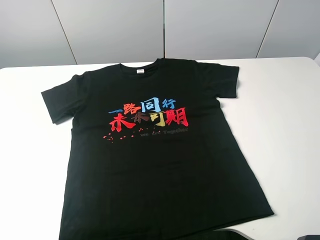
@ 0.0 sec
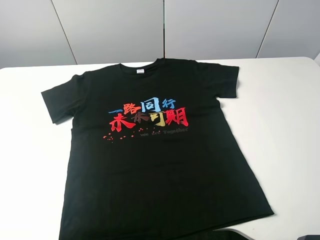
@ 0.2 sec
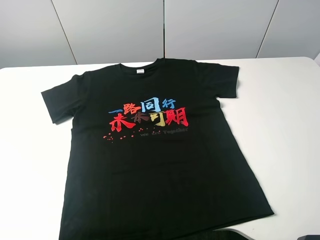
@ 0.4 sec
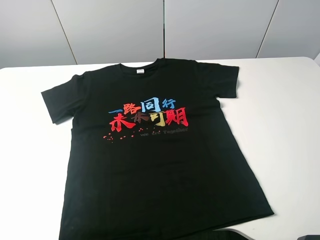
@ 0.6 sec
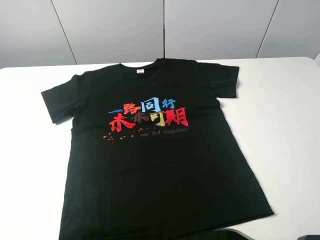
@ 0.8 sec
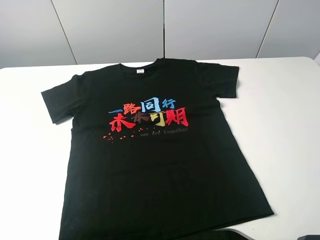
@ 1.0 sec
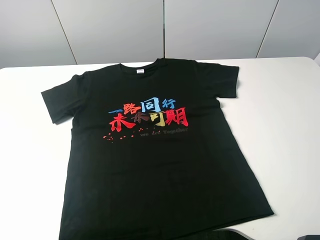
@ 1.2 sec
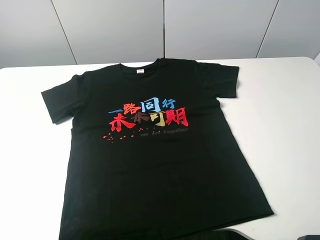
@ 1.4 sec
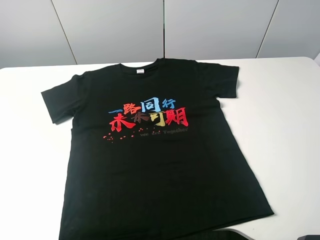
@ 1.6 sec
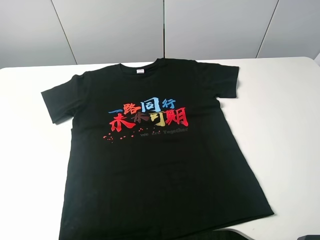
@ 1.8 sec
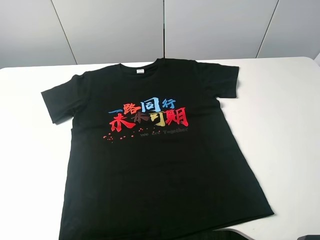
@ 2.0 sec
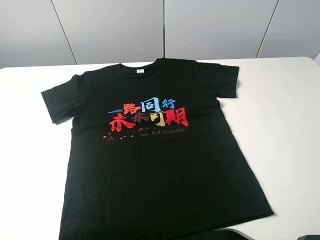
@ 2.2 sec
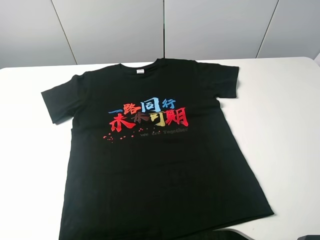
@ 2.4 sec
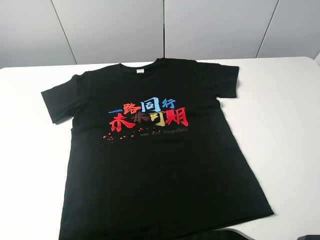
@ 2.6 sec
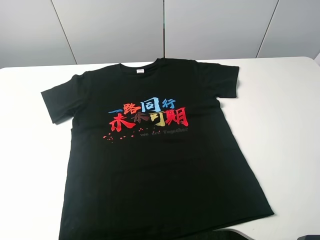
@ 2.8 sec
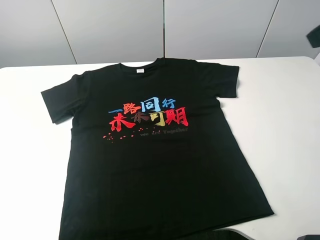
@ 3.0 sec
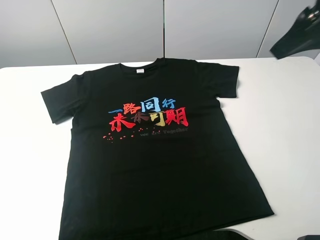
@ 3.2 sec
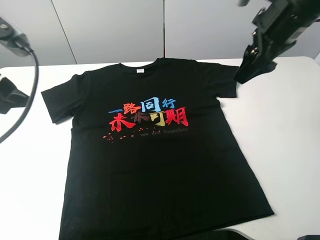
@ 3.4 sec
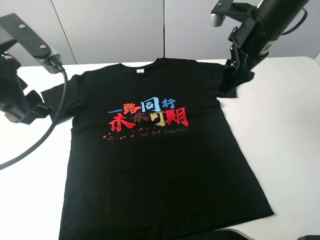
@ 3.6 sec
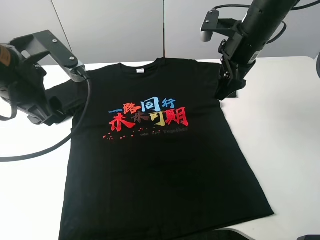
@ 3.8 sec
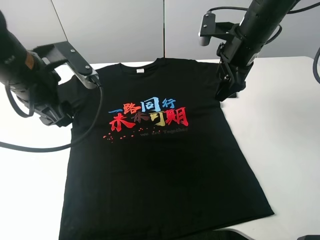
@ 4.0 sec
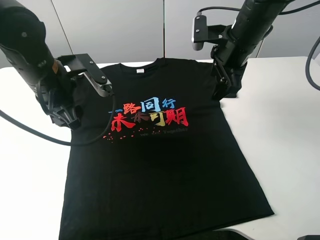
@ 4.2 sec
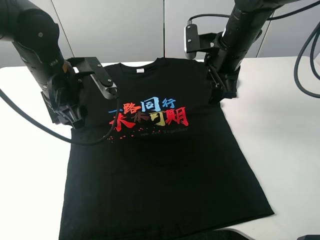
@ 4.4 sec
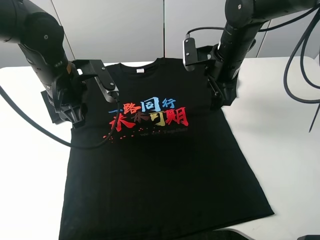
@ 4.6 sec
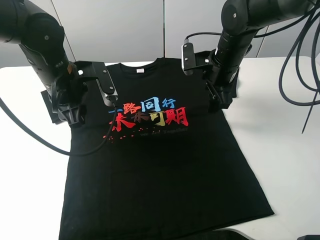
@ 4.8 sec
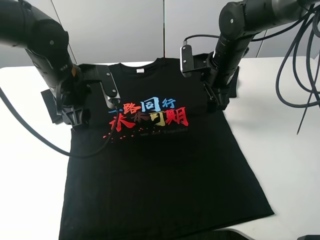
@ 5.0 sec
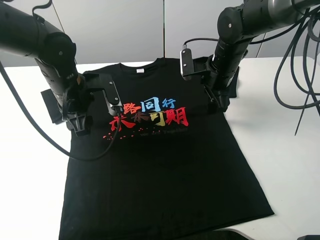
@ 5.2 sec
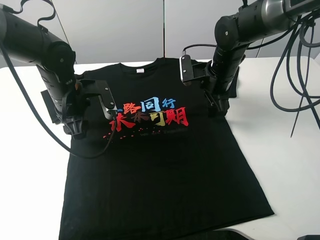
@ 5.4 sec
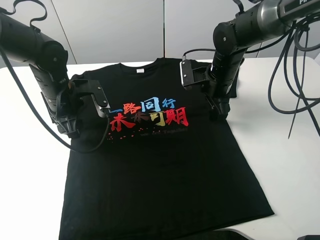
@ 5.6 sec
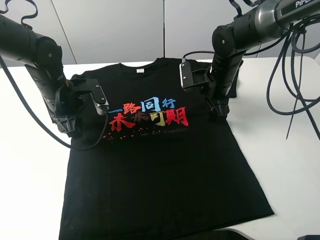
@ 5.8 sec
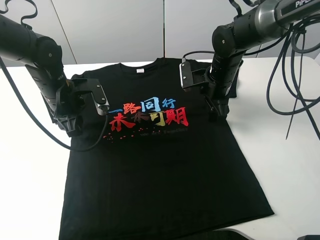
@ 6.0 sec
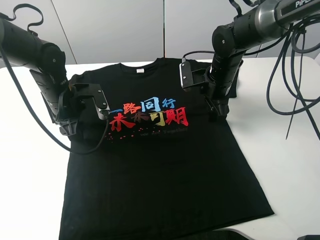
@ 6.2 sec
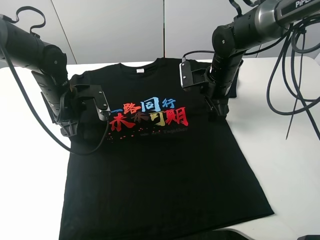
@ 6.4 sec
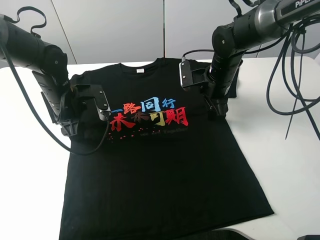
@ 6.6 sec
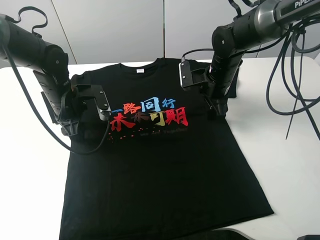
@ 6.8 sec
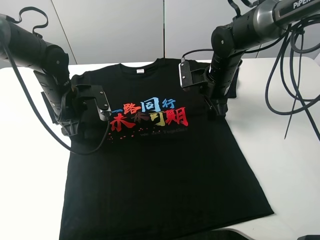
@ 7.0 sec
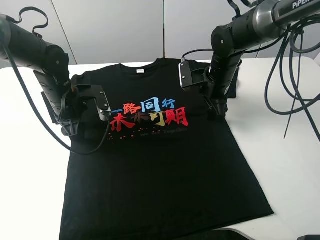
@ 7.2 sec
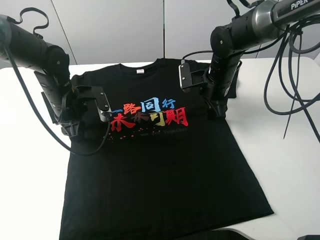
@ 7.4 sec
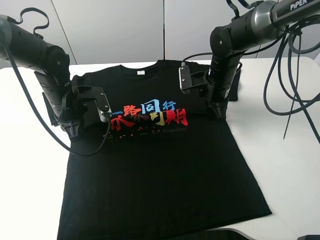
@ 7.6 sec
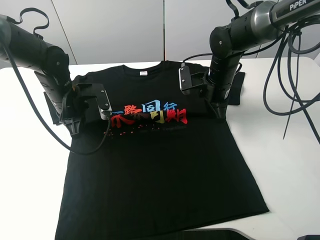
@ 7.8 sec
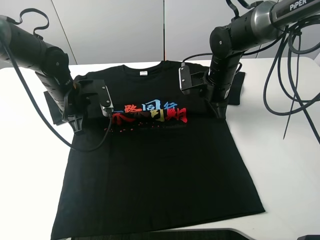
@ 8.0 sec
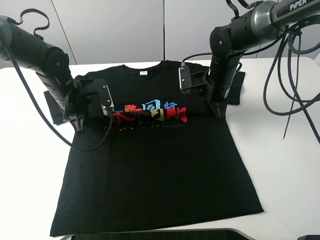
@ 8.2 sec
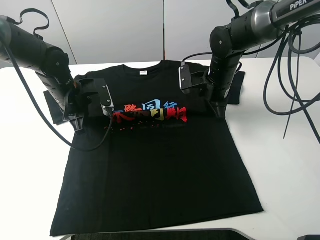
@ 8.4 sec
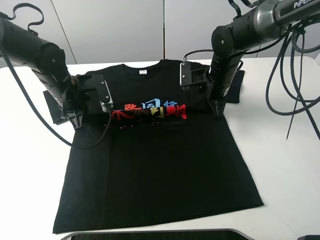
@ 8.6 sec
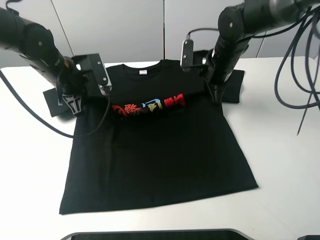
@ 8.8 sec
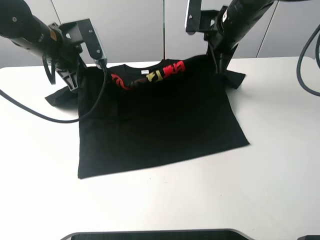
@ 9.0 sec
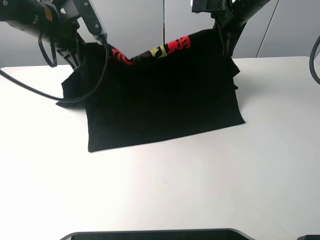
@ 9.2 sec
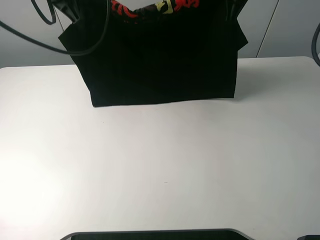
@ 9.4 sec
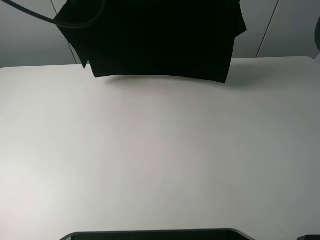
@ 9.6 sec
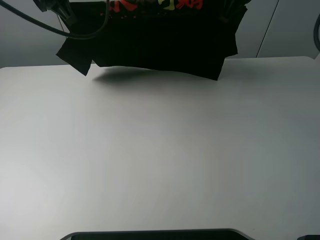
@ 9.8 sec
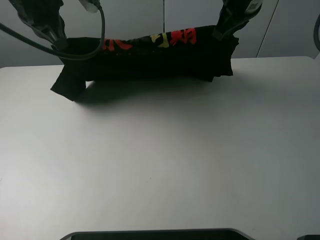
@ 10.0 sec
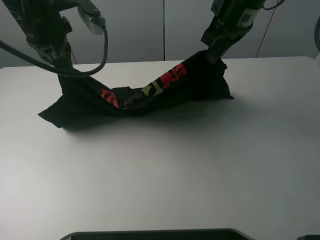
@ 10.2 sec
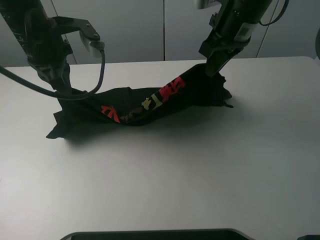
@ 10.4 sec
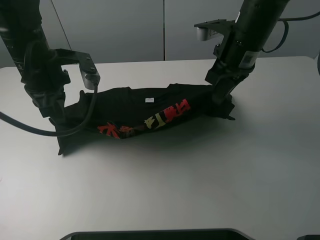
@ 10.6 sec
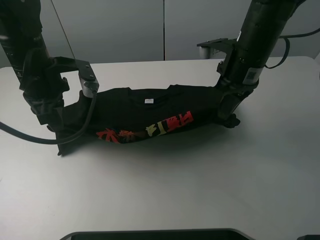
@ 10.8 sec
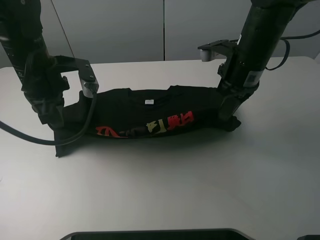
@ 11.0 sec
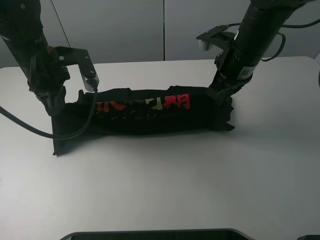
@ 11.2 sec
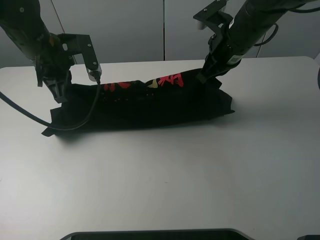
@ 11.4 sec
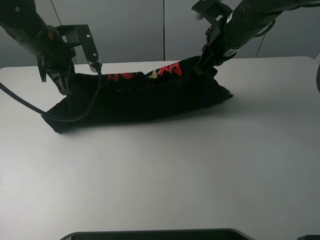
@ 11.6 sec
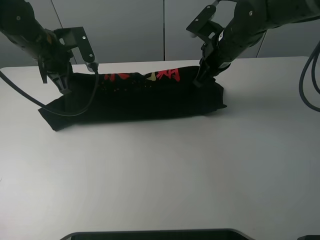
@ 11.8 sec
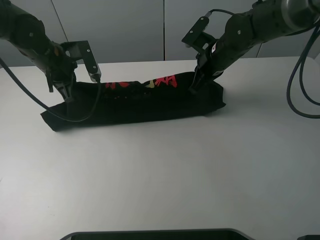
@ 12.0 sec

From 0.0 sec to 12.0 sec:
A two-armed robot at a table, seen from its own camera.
Task of the whole recording: fold the clothes on the table.
Step, from 0.0 sec to 7.0 sec: Lift the black T-shirt with the left gripper.
From 0.0 sec to 1.6 sec: The two grippers keep their place.
From 1.6 sec to 3.0 sec: The right gripper shifts approximately 20 cm forward.
From 3.0 sec to 4.4 sec: The left gripper travels forward, to the right and downward by approximately 25 cm; the right gripper travels downward, forward and to the left by approximately 25 cm.
From 4.4 sec to 6.0 sec: The two grippers go approximately 5 cm downward.
From 6.0 sec to 7.6 sec: The left gripper closes up, while the right gripper closes up.
From 7.6 sec to 9.0 sec: Both grippers travel together upward, some 15 cm.
From 9.0 sec to 10.4 sec: The right gripper shifts about 5 cm backward. The left gripper reaches roughly 15 cm upward, then returns.
From 10.4 sec to 12.0 sec: Both grippers move downward and forward, approximately 10 cm.

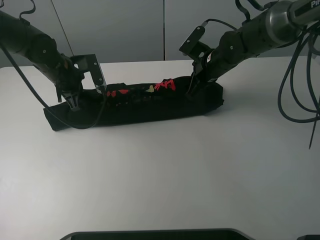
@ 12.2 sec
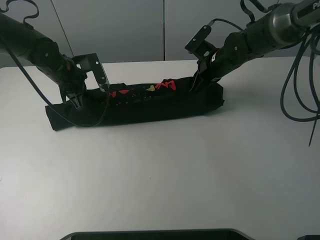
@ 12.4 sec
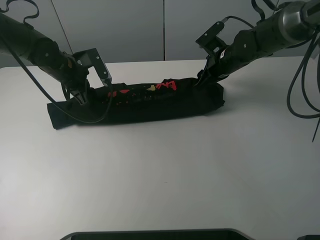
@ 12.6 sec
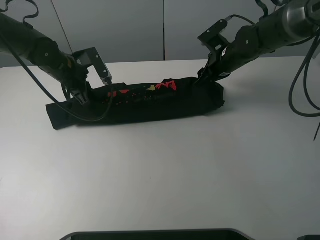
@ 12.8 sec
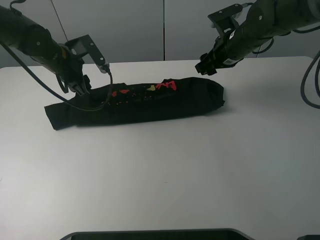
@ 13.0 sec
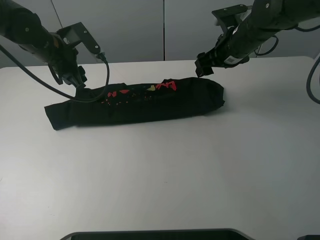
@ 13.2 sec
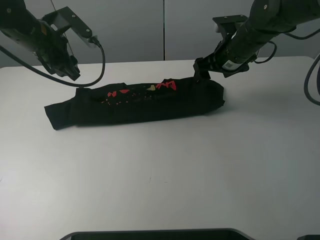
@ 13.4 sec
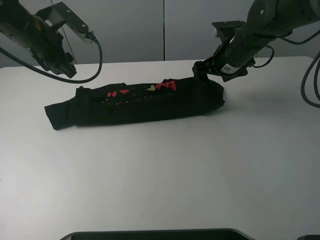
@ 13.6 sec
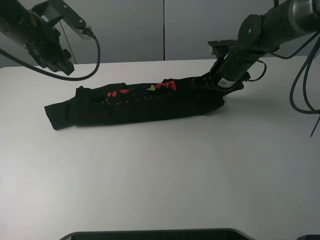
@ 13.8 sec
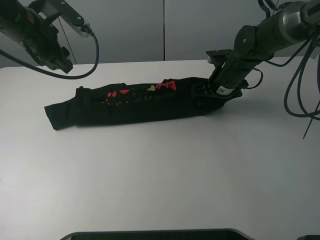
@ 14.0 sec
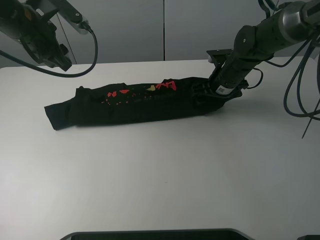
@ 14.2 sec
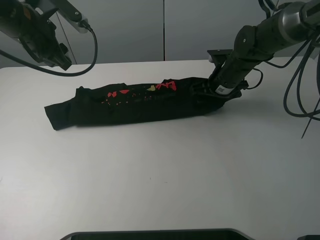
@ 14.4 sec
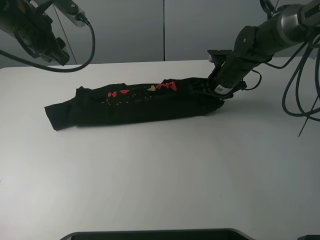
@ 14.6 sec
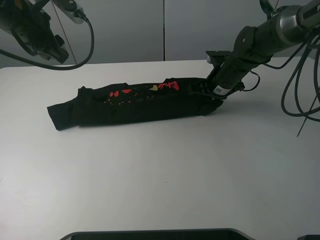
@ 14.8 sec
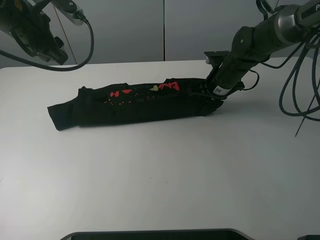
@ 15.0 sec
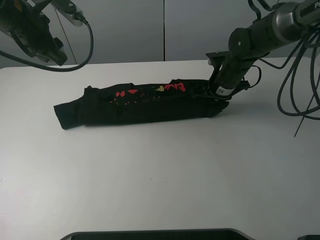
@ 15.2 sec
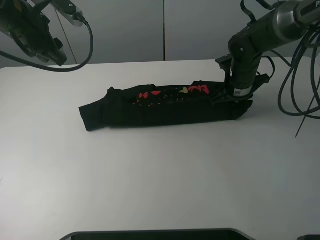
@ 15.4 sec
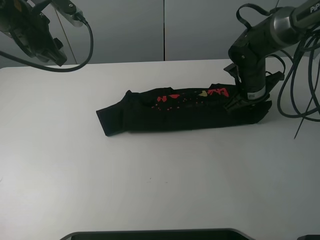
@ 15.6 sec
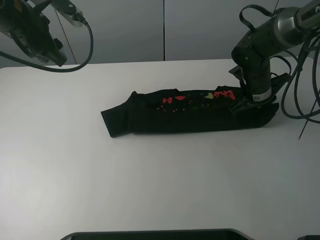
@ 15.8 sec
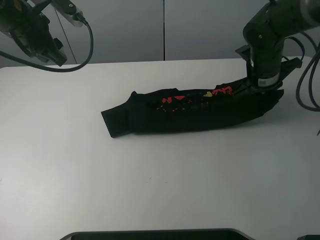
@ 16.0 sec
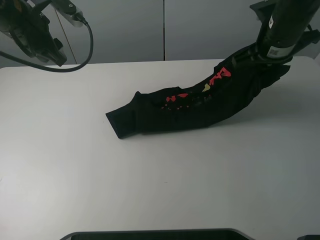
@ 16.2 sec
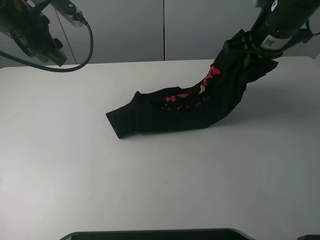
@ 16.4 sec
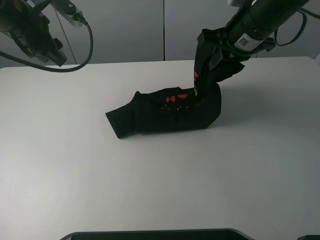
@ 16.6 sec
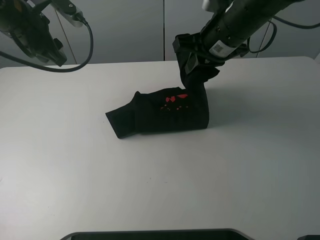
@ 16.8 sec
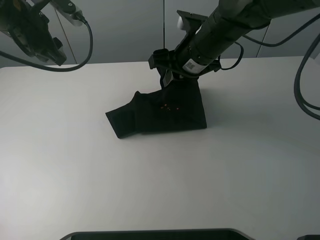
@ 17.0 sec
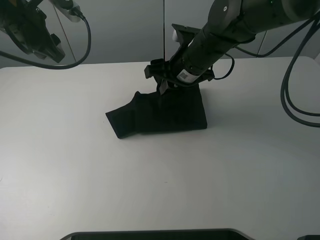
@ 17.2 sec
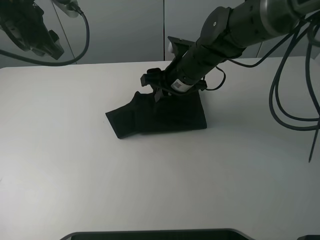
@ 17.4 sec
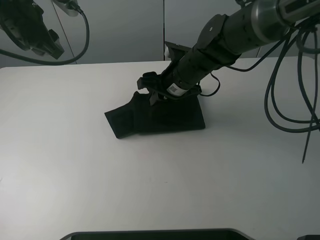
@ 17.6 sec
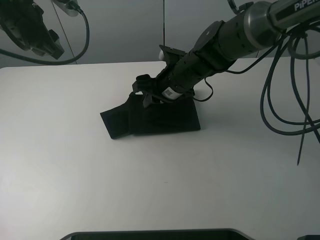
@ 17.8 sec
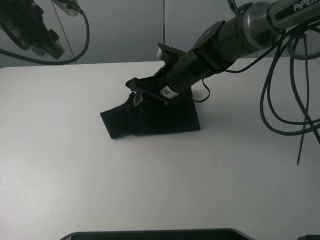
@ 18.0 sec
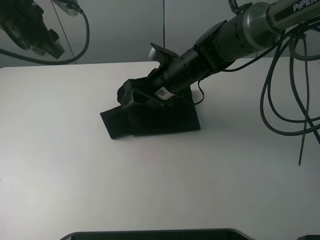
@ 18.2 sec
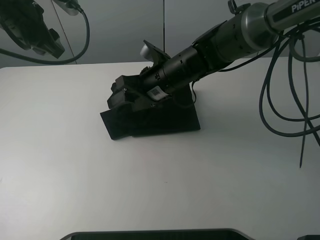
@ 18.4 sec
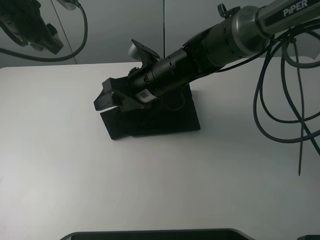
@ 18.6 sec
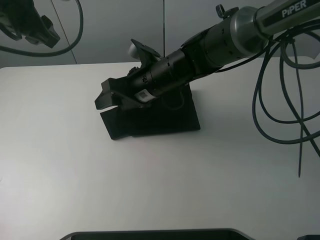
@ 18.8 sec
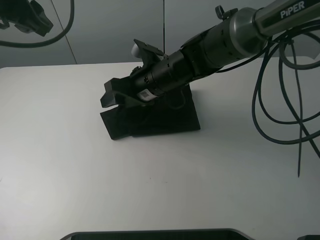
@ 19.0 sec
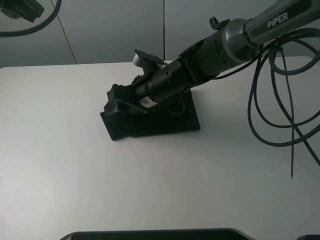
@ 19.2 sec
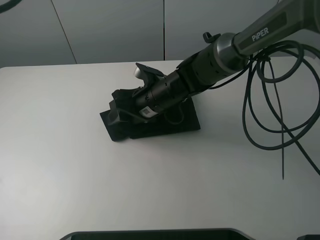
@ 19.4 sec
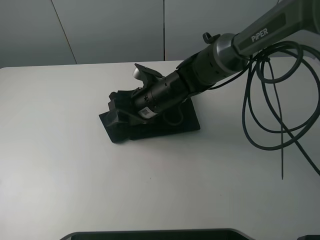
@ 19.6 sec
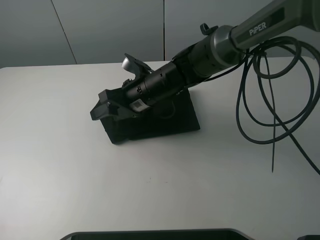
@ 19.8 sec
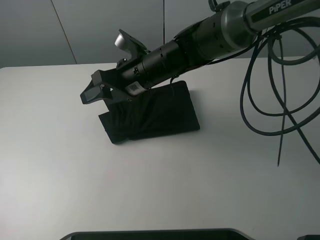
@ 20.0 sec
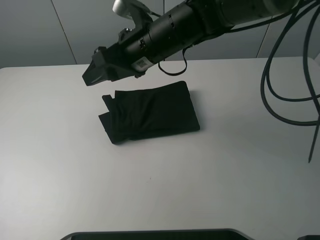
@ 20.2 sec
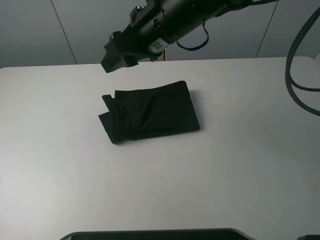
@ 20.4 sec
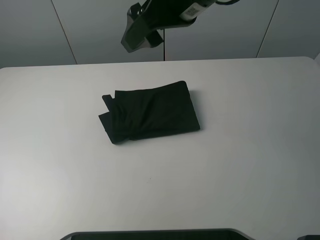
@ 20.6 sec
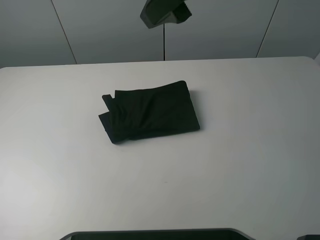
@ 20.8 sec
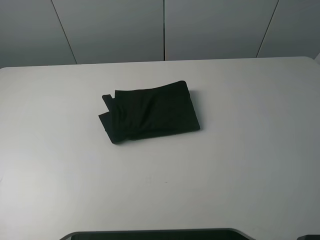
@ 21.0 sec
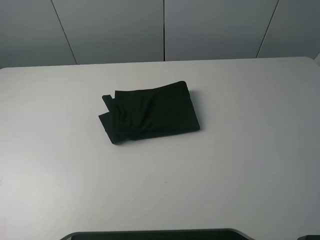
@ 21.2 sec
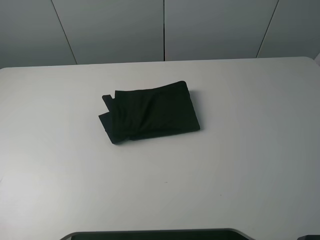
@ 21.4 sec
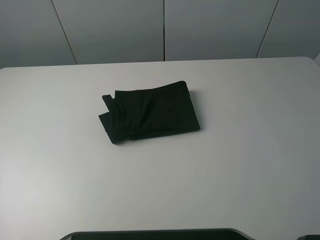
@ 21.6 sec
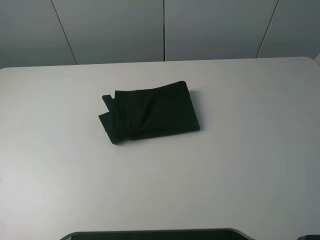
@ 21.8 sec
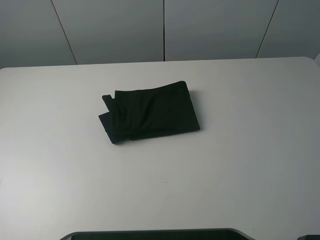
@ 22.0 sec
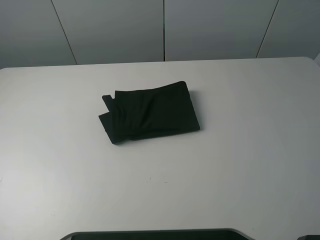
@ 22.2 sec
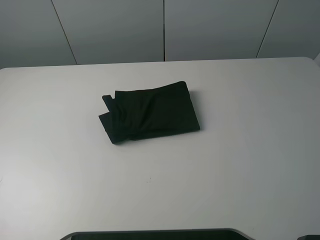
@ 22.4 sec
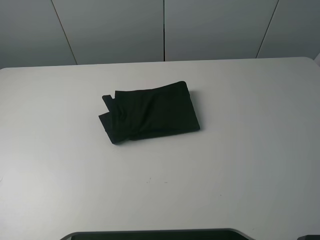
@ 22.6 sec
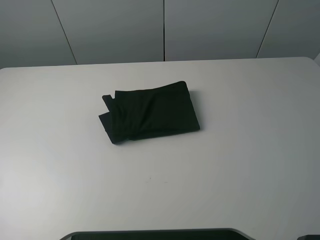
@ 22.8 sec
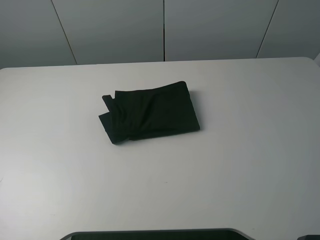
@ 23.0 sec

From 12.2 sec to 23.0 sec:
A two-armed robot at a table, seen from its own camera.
Task of the whole recording: fold the clothes on the table.
Step, from 12.4 sec to 14.8 sec: Grasp the black T-shirt with the right gripper.
Step, from 15.0 sec to 19.8 sec: Fold the black T-shirt from right to left with right gripper.
From 12.2 sec to 13.8 sec: The left gripper moves upward, approximately 10 cm, and opens, while the right gripper opens its fingers.
From 13.8 sec to 15.2 sec: The right gripper closes its fingers.
From 15.2 sec to 16.8 sec: The right gripper moves upward and to the left, about 15 cm.
From 16.8 sec to 18.4 sec: The right gripper goes some 15 cm to the left and downward, and opens.
From 18.4 sec to 20.0 sec: The left gripper shifts about 20 cm upward and backward. The right gripper moves about 5 cm downward and comes back.
From 20.0 sec to 21.4 sec: The left gripper travels backward and to the left by roughly 25 cm. Meanwhile the right gripper heads upward, to the right and backward, covering about 40 cm.
